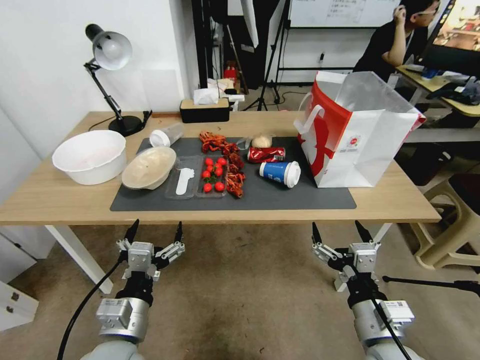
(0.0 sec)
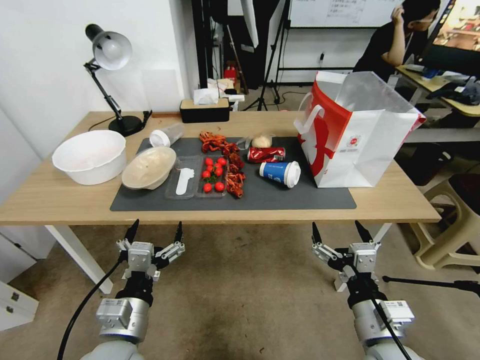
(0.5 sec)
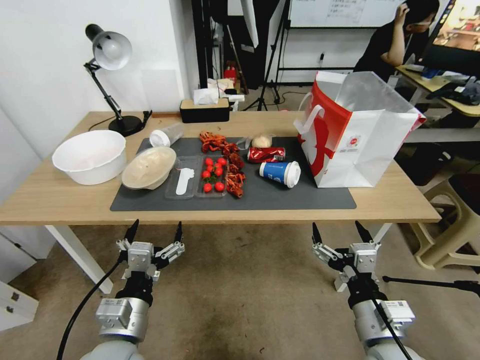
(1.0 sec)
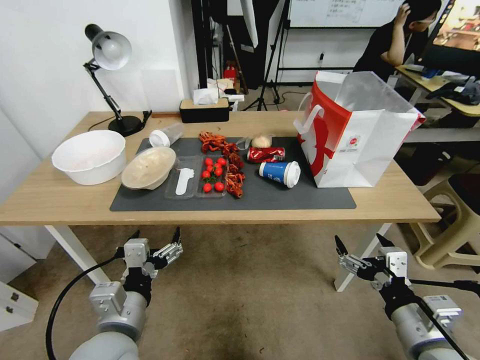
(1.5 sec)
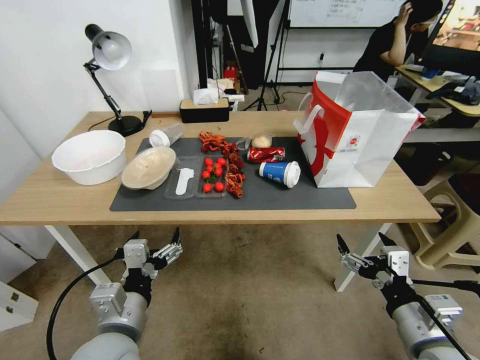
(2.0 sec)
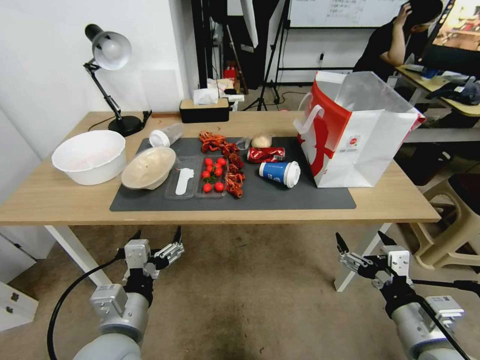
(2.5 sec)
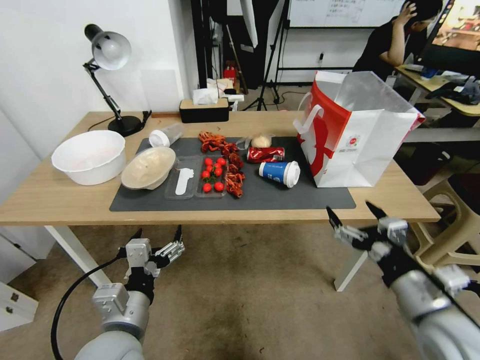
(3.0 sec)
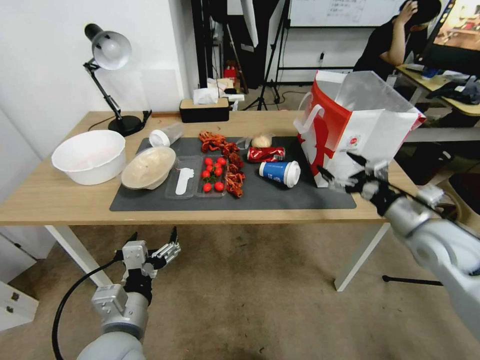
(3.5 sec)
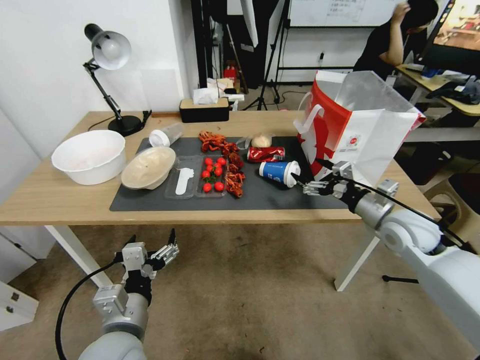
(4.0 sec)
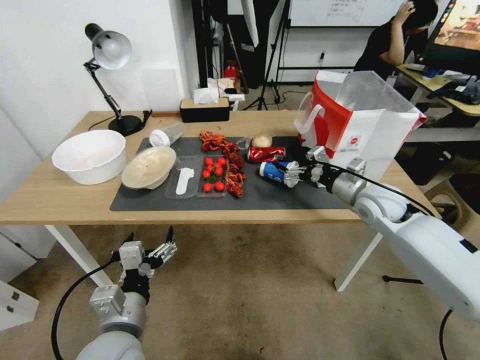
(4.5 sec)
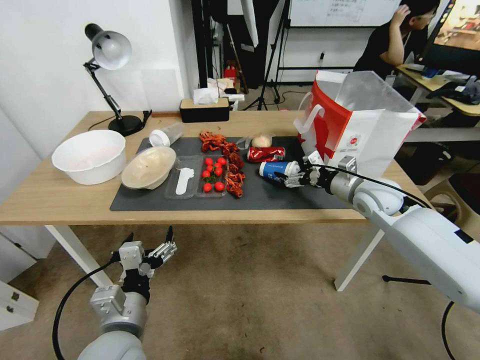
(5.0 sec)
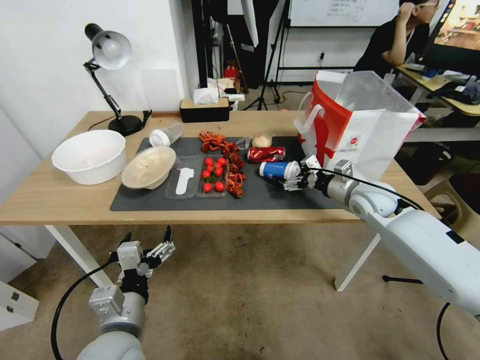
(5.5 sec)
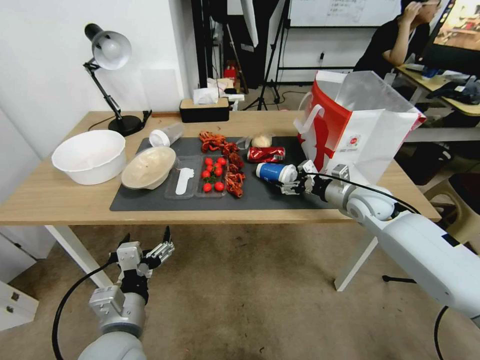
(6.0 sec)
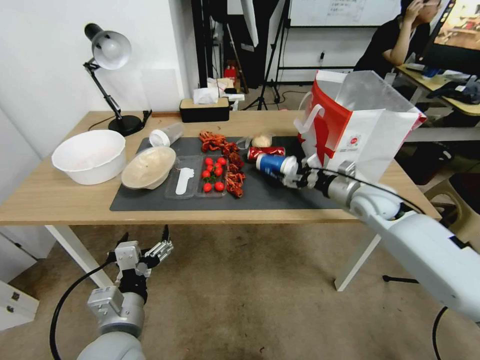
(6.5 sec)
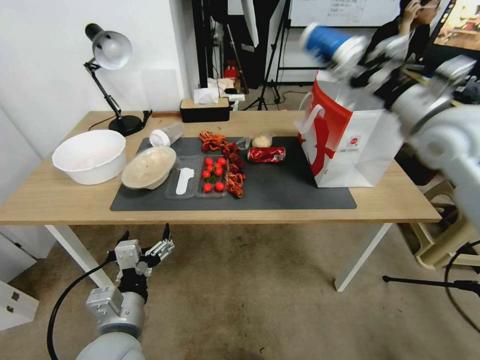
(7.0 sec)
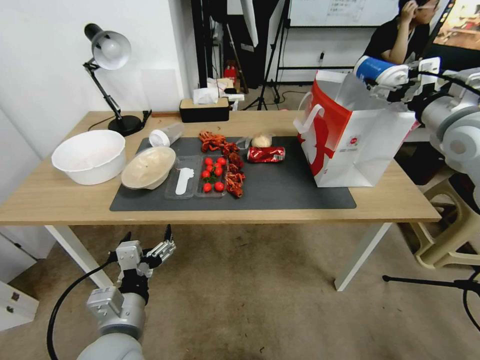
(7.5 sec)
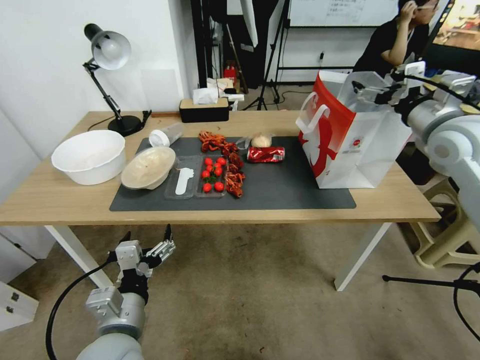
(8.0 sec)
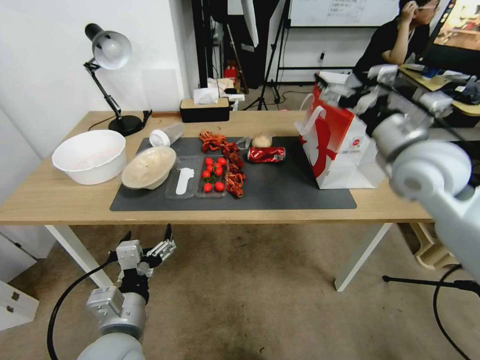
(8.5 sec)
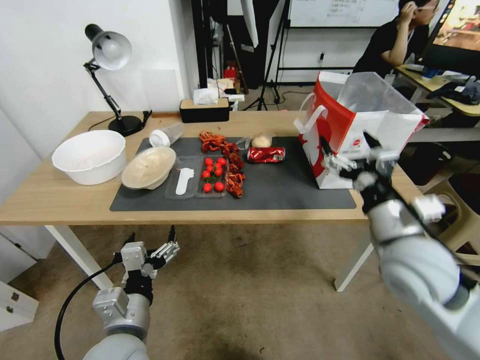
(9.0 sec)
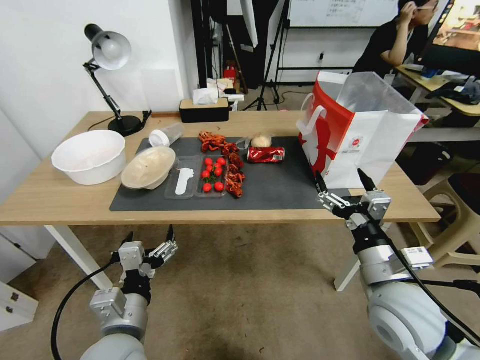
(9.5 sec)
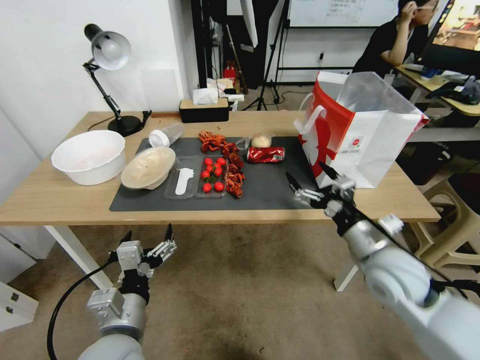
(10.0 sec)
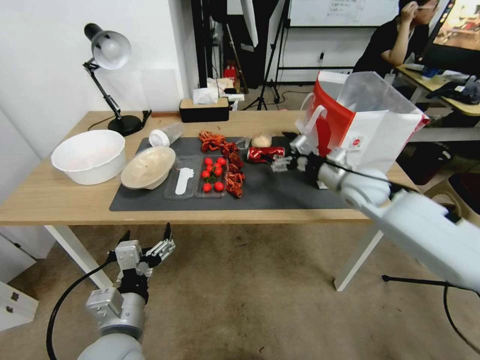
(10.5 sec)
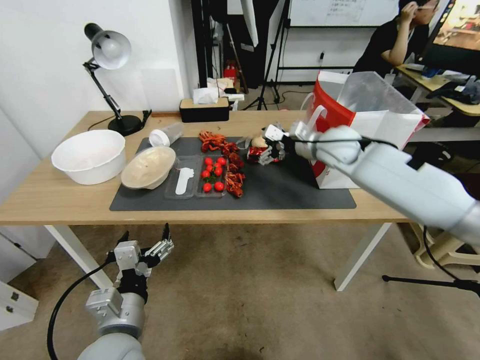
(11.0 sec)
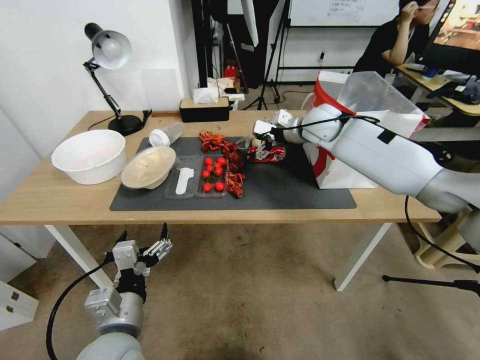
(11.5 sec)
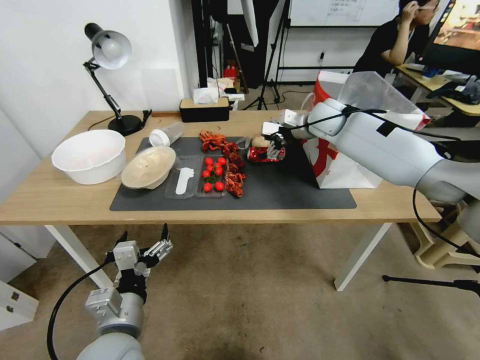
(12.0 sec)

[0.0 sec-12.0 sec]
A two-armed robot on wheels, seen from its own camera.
2.0 sec to 4.0 sec: The right gripper goes some 25 cm forward.
4.0 sec to 6.0 sec: The right gripper heads forward, covering approximately 10 cm.
6.0 sec to 8.0 sec: The right gripper travels upward by some 20 cm.
8.0 sec to 10.0 sec: The right gripper travels downward, backward and to the left by about 30 cm.
10.0 sec to 12.0 sec: The right gripper moves forward, approximately 35 cm.

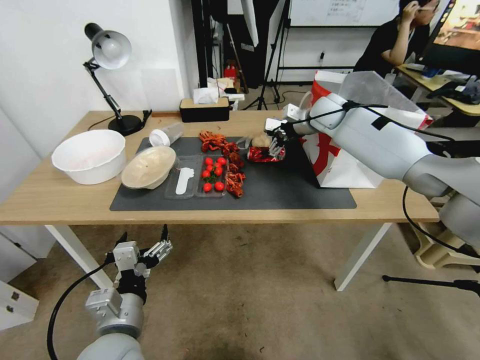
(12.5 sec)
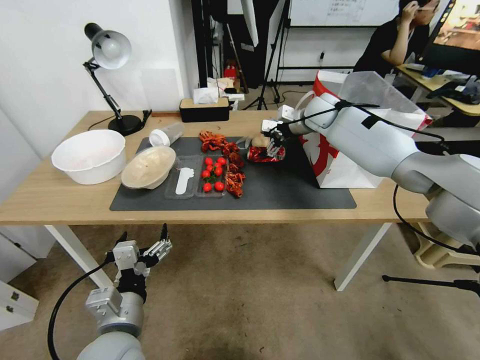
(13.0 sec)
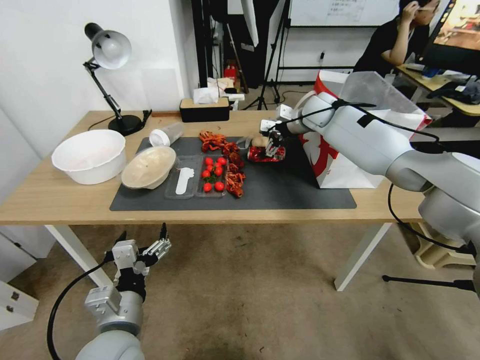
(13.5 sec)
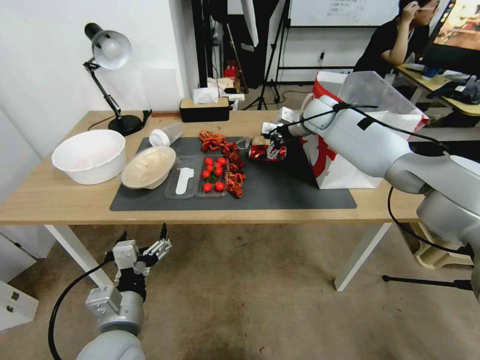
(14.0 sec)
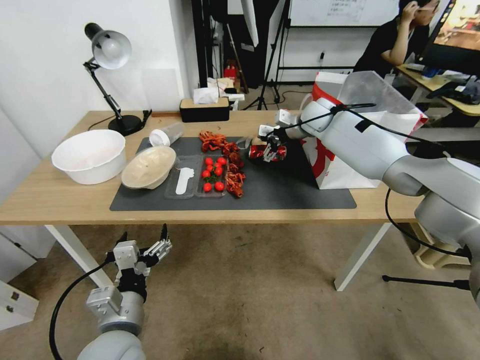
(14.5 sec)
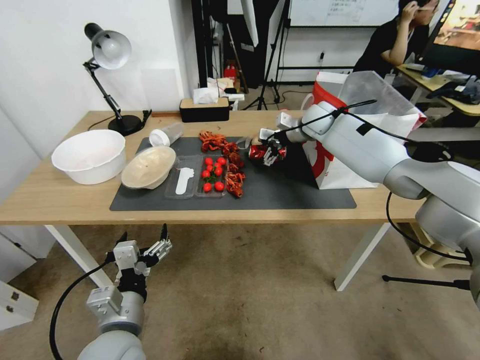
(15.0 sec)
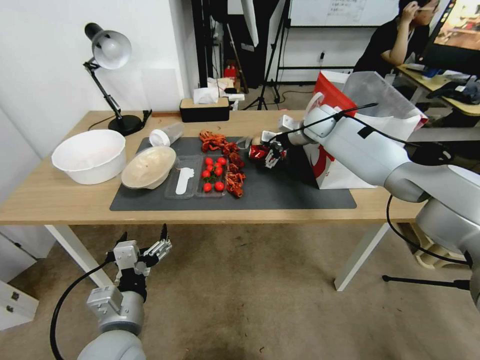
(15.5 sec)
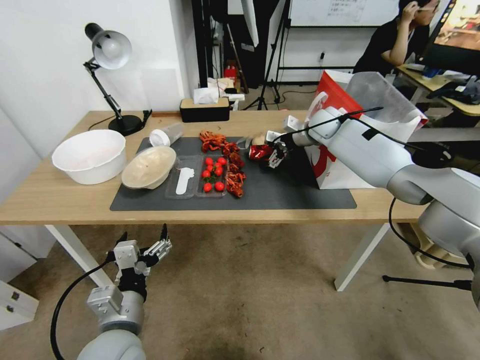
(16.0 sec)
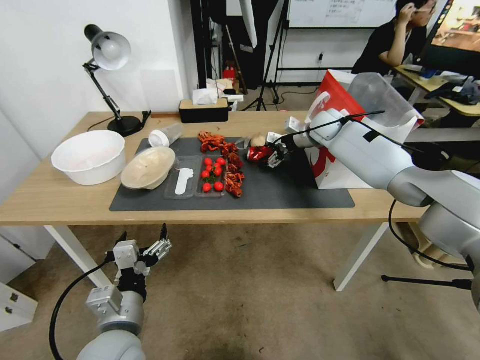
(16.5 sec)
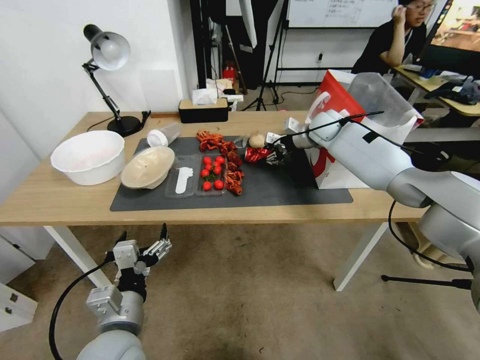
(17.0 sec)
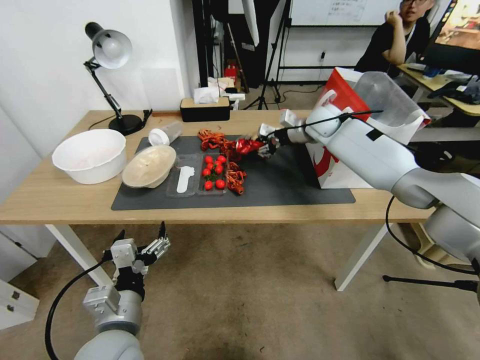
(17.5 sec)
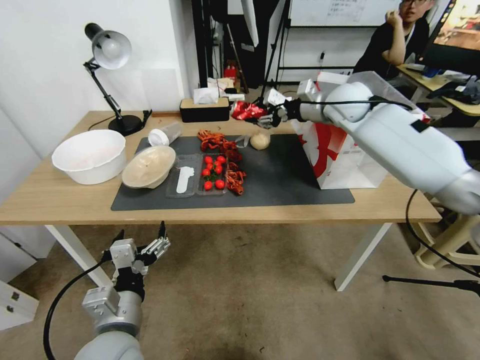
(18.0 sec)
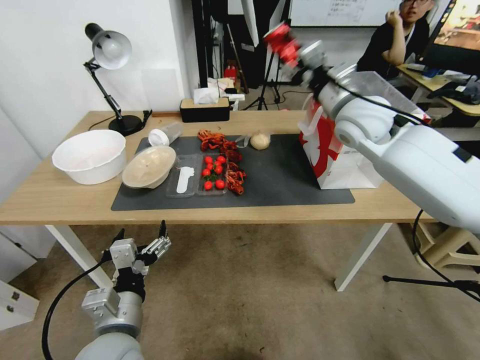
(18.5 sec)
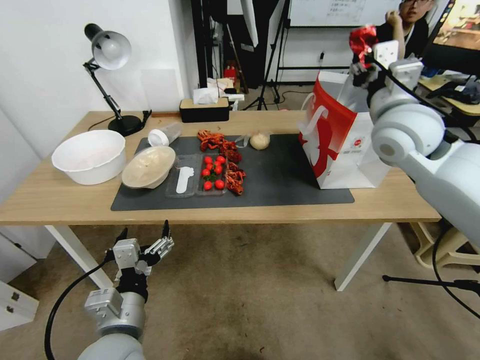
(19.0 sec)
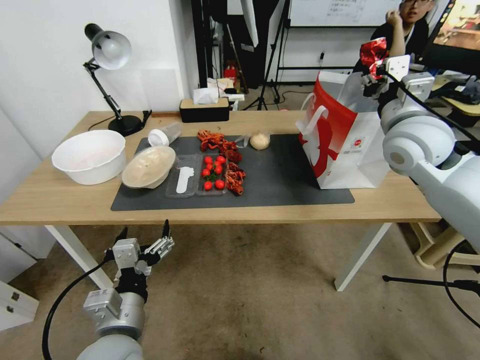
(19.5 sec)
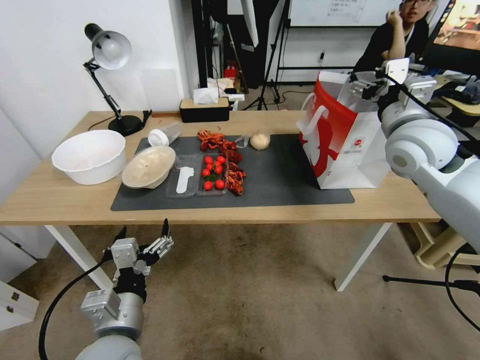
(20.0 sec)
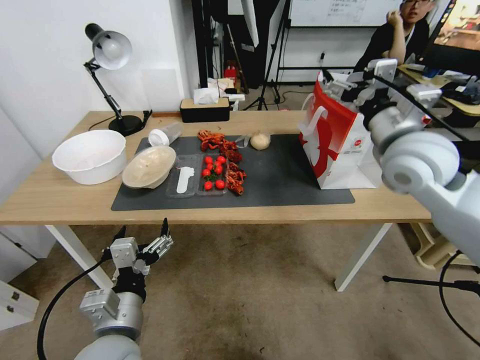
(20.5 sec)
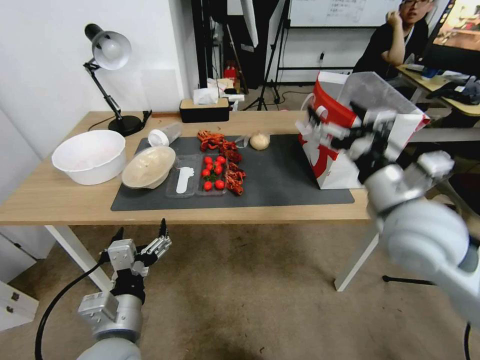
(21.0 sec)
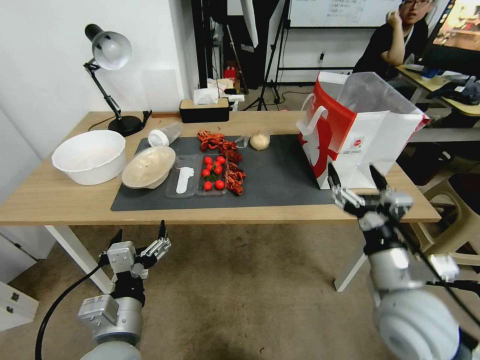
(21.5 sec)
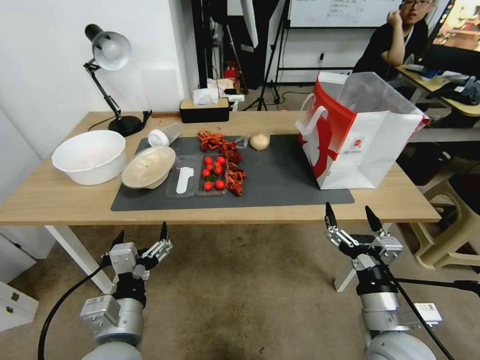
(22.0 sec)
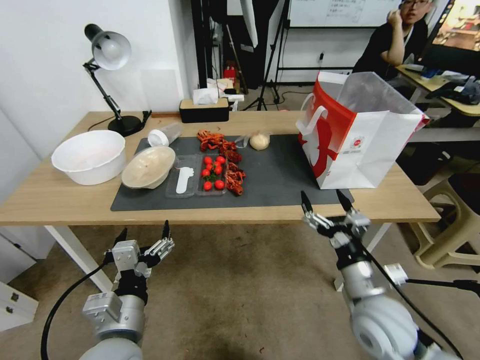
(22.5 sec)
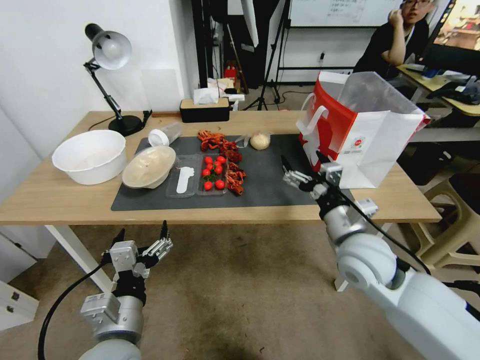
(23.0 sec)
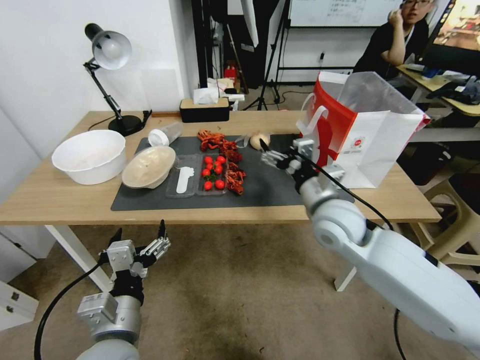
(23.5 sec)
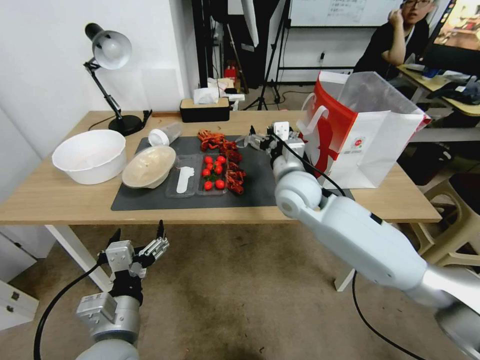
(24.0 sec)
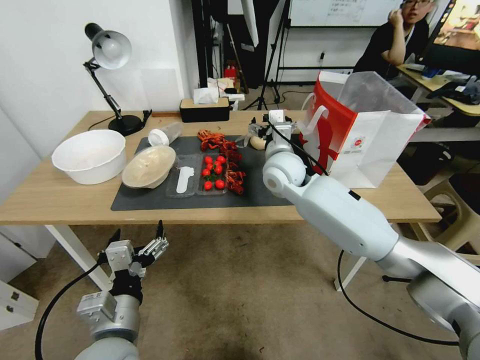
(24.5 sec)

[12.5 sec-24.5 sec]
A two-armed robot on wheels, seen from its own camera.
12.5 sec to 16.5 sec: The grippers move only a little.
16.5 sec to 18.5 sec: The right gripper travels backward and upward by about 20 cm, and closes up.
18.5 sec to 20.5 sec: The right gripper shifts about 10 cm backward, and opens its fingers.
20.5 sec to 22.5 sec: The right gripper goes roughly 30 cm downward and backward.
22.5 sec to 24.5 sec: The right gripper moves forward, to the left and upward, approximately 35 cm.

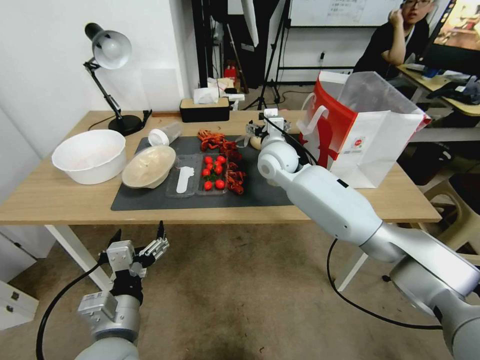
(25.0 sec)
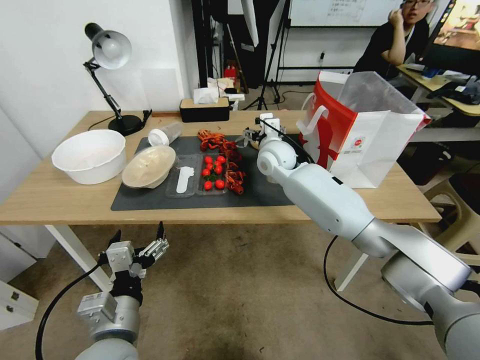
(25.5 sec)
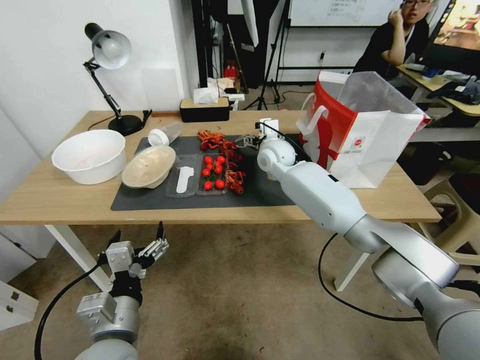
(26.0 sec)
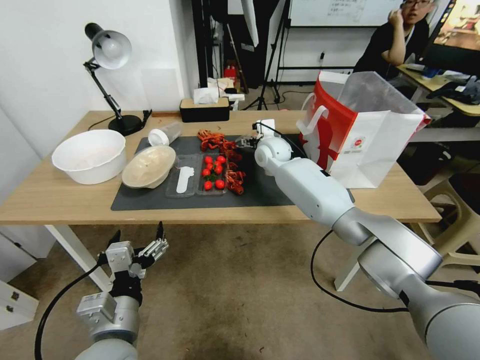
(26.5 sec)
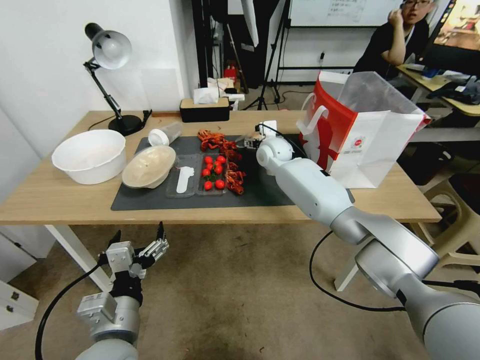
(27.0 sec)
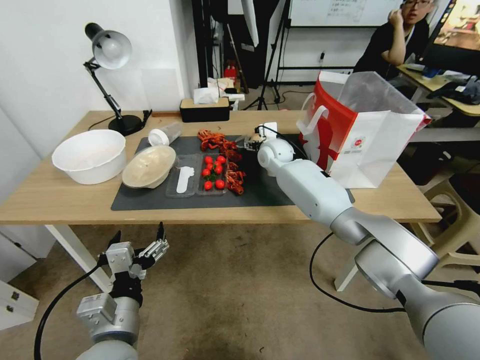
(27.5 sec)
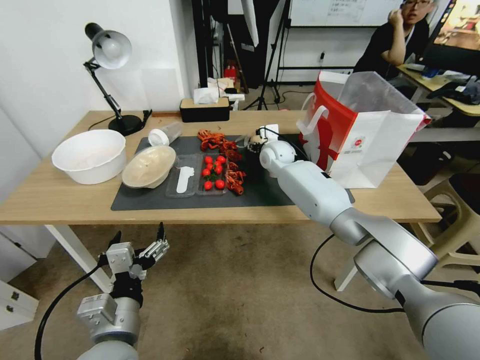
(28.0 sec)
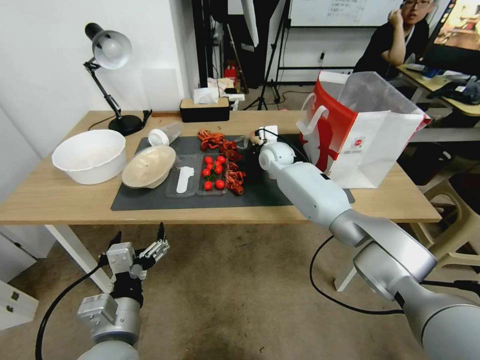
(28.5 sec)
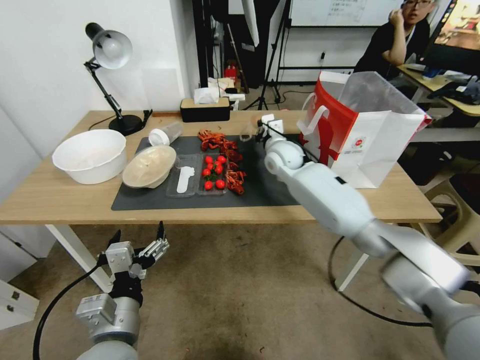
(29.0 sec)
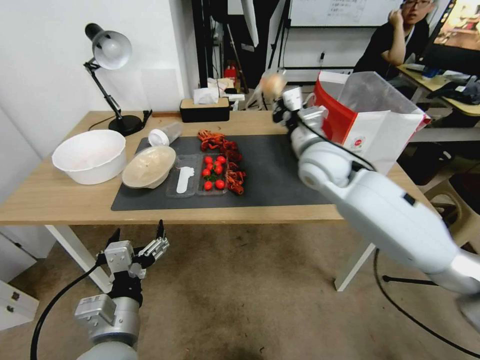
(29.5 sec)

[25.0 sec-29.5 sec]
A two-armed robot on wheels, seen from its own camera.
25.0 sec to 27.0 sec: The right gripper shifts roughly 10 cm forward.
27.0 sec to 29.5 sec: The right gripper shifts about 20 cm backward, upward and to the right, and closes up.
